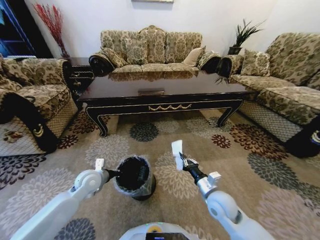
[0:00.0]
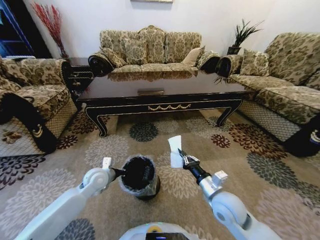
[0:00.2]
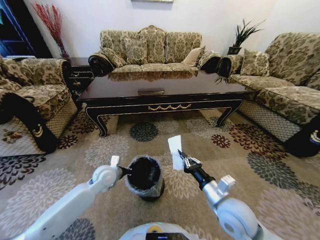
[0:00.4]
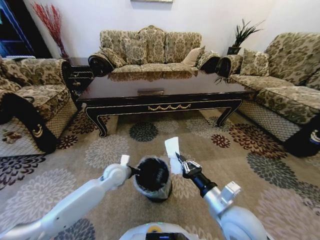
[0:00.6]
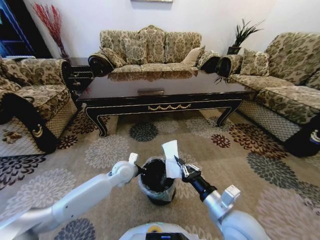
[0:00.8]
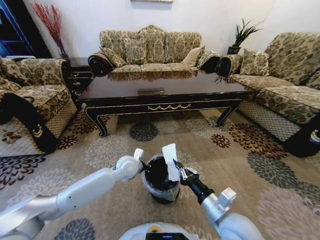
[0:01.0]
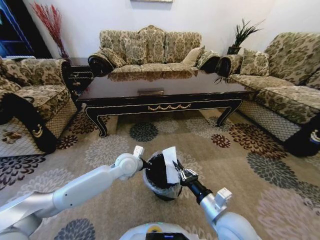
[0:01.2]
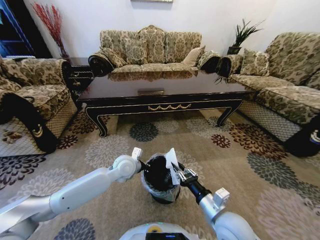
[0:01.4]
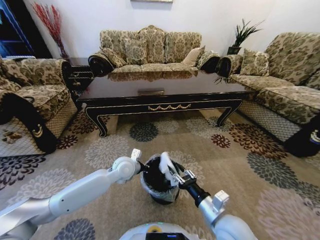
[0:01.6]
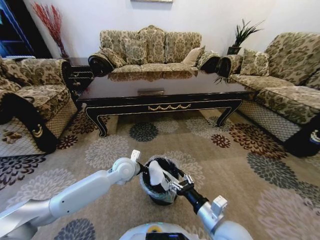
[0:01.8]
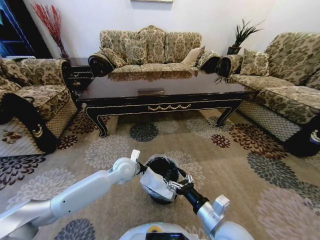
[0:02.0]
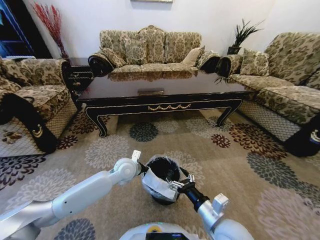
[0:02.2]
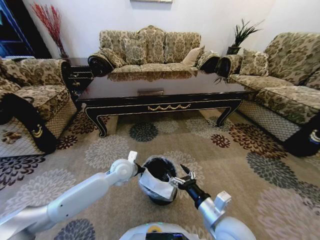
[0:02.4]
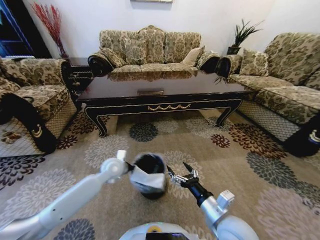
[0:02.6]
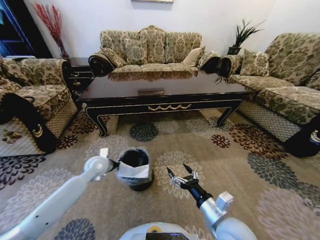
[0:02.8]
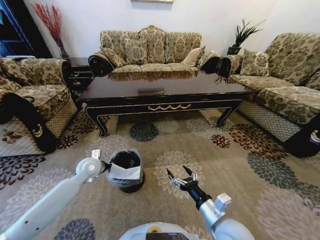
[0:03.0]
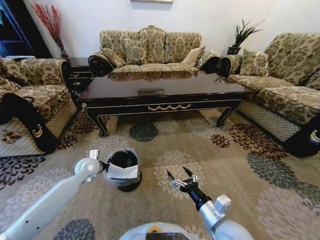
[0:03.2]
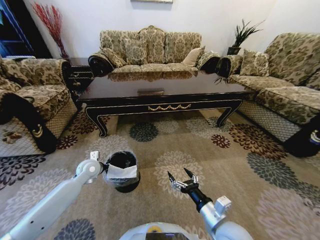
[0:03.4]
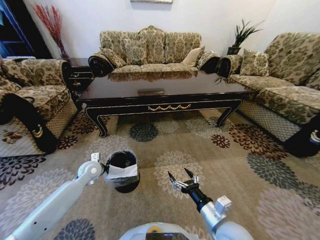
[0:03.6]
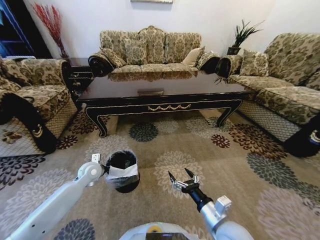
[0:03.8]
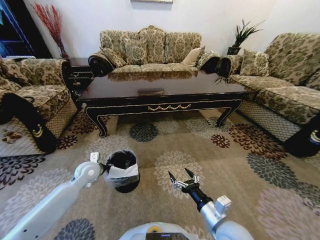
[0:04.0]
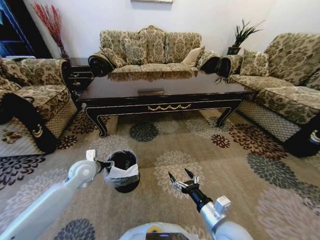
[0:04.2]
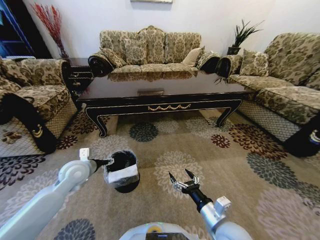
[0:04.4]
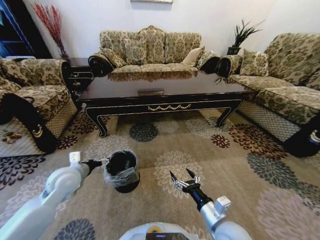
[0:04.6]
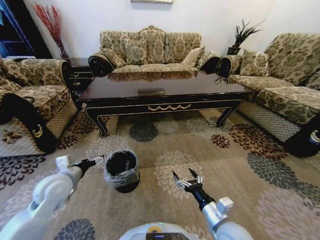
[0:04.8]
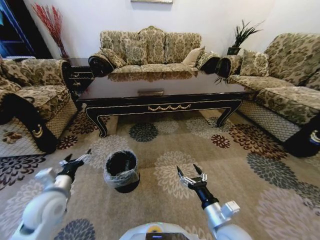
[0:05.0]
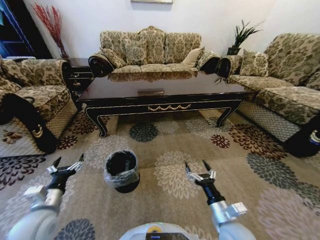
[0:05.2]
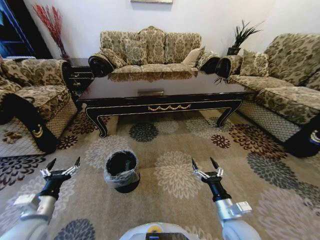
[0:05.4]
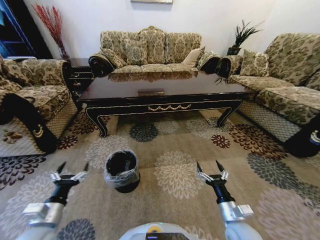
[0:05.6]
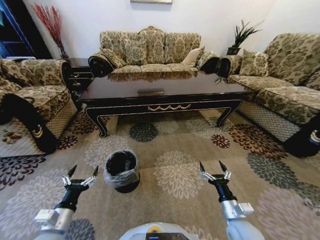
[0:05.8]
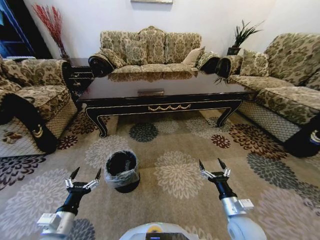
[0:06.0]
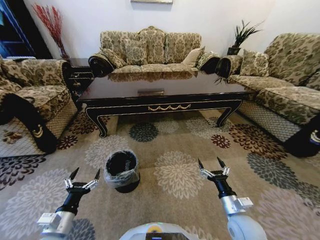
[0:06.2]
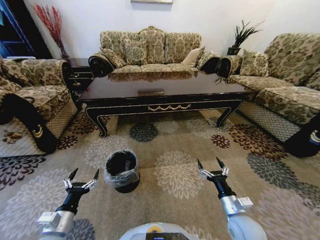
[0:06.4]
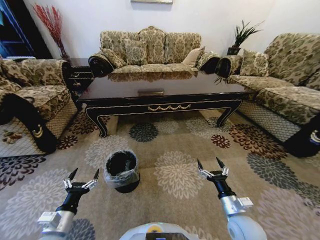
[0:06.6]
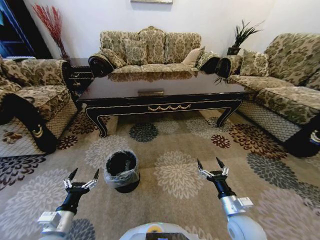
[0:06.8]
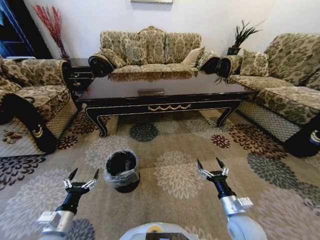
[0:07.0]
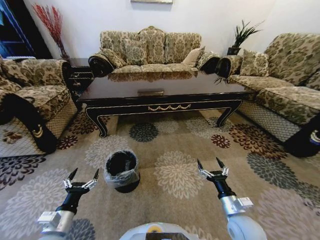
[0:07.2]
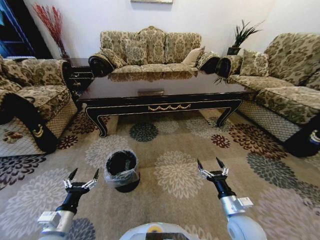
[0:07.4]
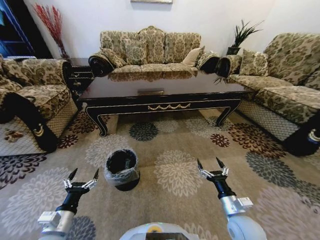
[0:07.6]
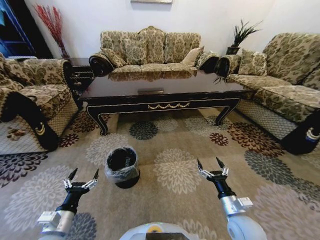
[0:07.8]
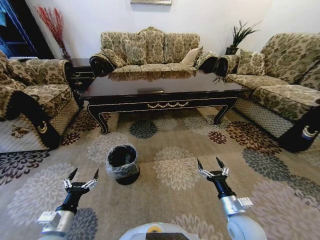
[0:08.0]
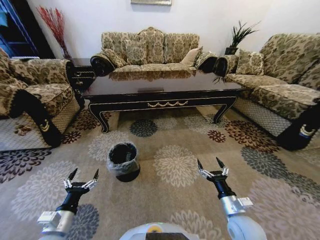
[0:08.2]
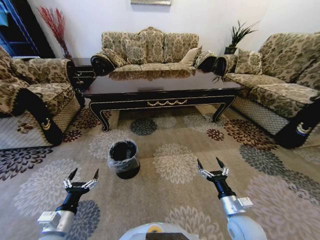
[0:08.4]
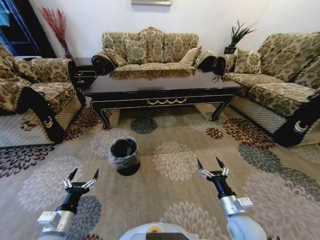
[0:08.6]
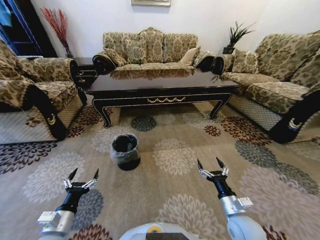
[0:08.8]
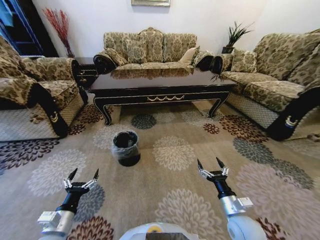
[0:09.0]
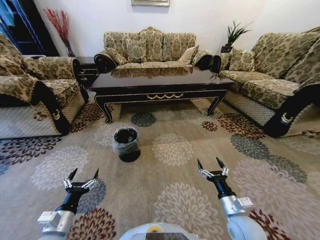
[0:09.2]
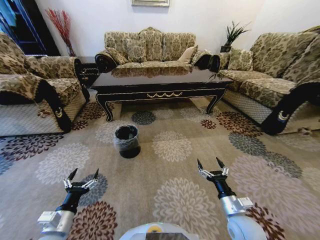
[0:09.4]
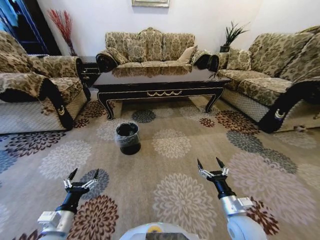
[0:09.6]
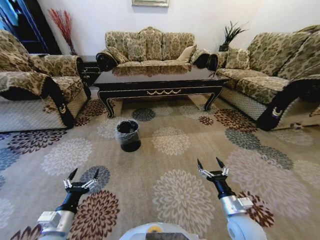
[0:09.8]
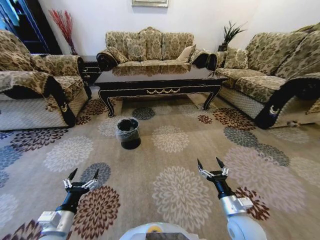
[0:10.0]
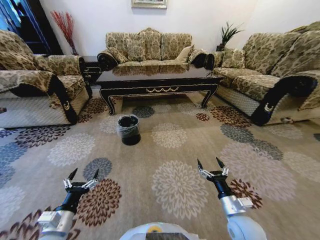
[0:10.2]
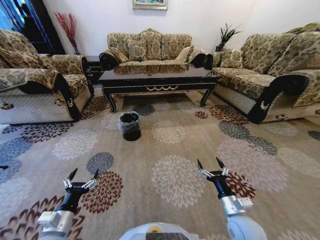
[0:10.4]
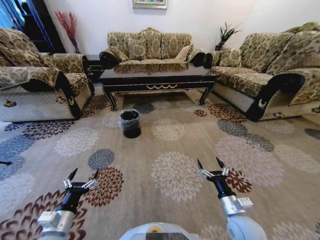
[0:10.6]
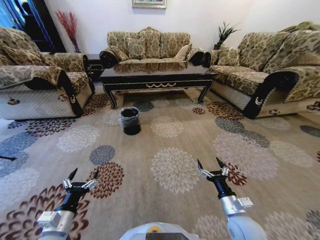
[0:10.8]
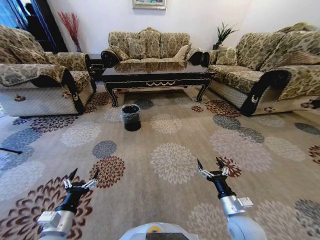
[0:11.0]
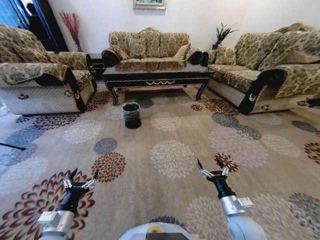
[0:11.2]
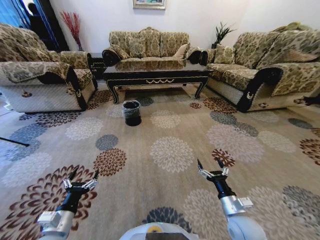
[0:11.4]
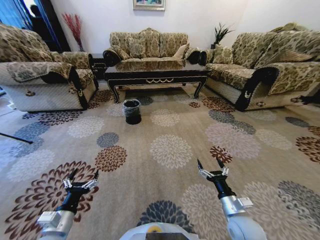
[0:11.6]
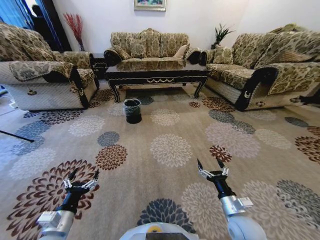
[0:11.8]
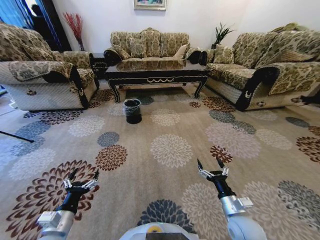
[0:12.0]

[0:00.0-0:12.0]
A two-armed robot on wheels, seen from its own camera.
Task of the whole recording: Move to the front of the table and pick up the trash from the floor, then place it into the trash bin.
0:00.0 to 0:01.6: The left gripper goes approximately 15 cm to the right. Meanwhile the right gripper travels backward by roughly 10 cm, and opens its fingers.
0:01.6 to 0:03.0: The left gripper heads to the left, covering about 15 cm; the right gripper opens.
0:03.0 to 0:04.4: The left gripper moves upward and backward, about 10 cm, and opens.
0:04.4 to 0:06.0: The right gripper goes approximately 10 cm to the right and downward. Meanwhile the left gripper is displaced backward and downward by about 25 cm.
0:06.0 to 0:07.6: Neither gripper changes place.

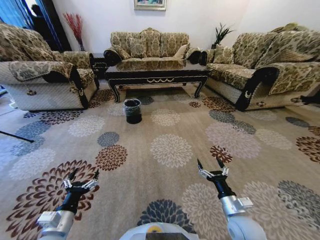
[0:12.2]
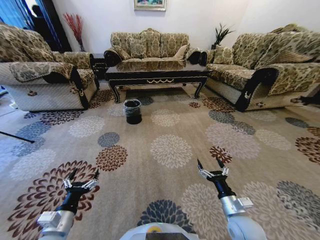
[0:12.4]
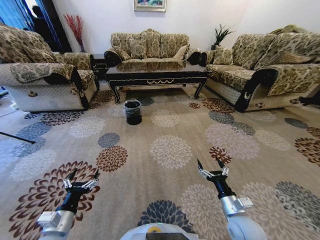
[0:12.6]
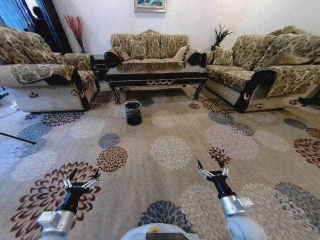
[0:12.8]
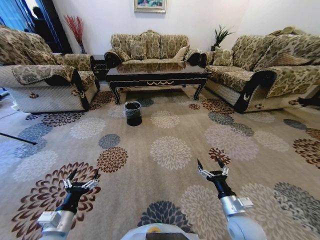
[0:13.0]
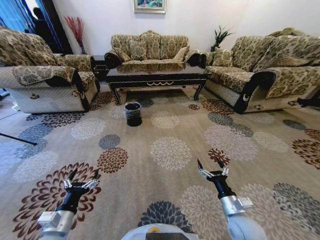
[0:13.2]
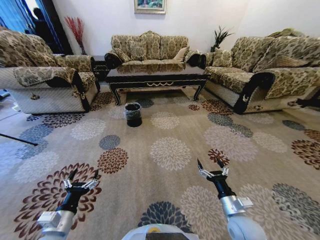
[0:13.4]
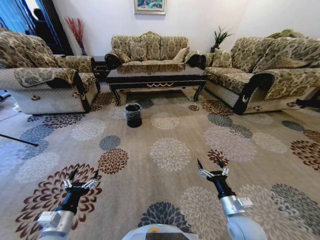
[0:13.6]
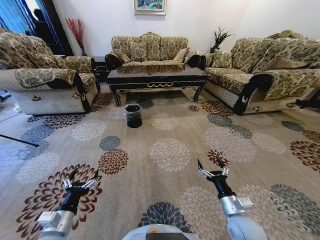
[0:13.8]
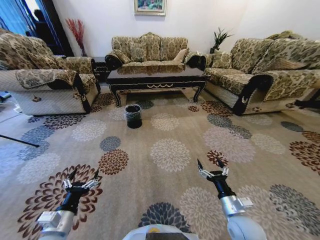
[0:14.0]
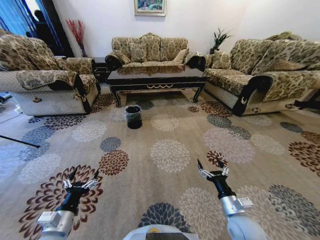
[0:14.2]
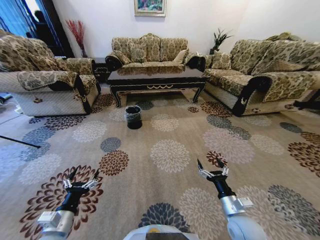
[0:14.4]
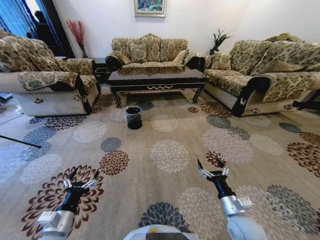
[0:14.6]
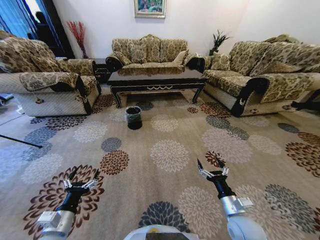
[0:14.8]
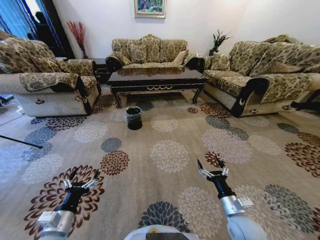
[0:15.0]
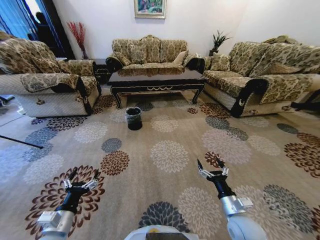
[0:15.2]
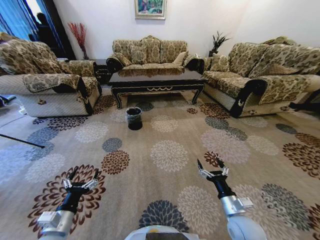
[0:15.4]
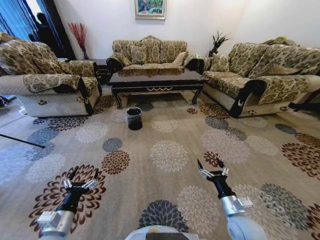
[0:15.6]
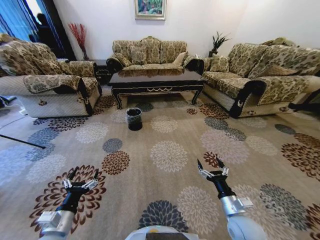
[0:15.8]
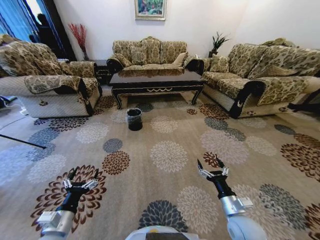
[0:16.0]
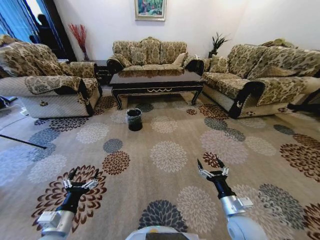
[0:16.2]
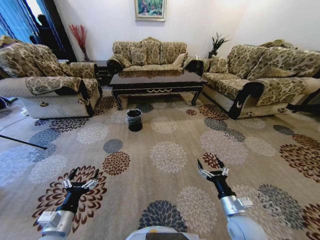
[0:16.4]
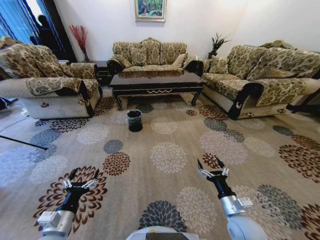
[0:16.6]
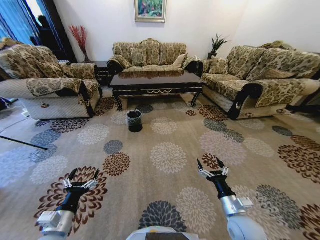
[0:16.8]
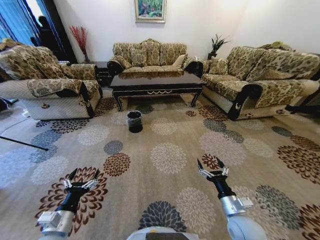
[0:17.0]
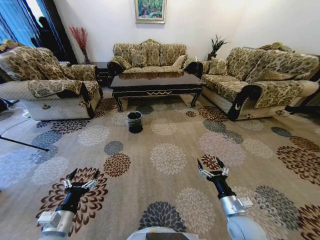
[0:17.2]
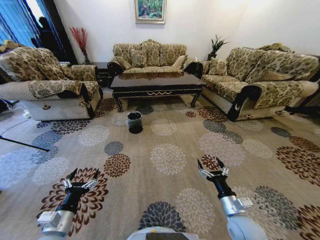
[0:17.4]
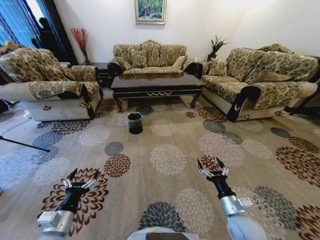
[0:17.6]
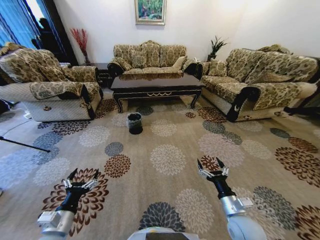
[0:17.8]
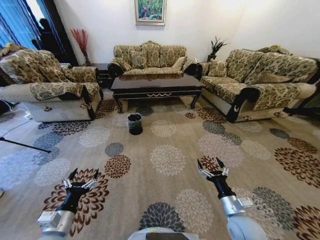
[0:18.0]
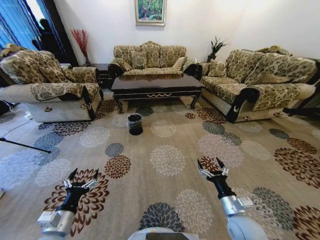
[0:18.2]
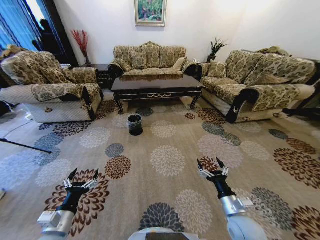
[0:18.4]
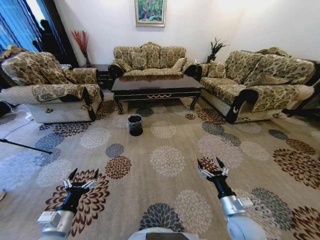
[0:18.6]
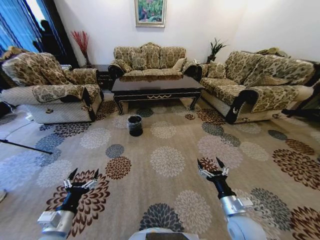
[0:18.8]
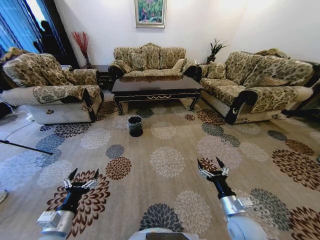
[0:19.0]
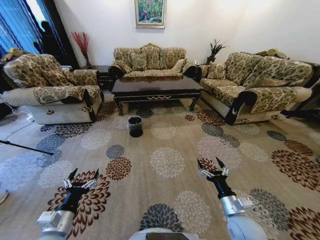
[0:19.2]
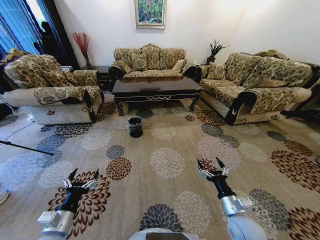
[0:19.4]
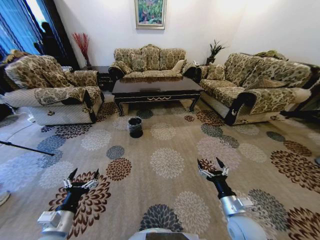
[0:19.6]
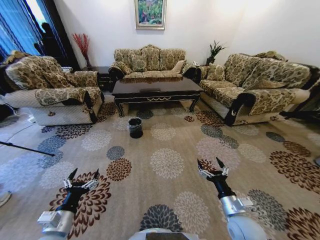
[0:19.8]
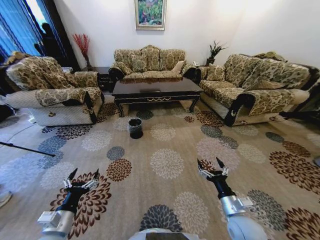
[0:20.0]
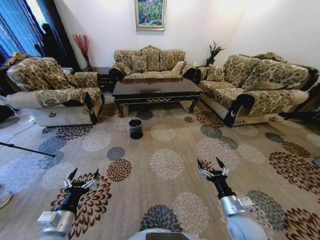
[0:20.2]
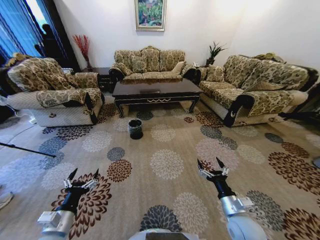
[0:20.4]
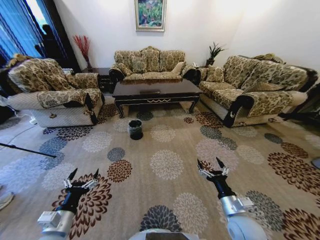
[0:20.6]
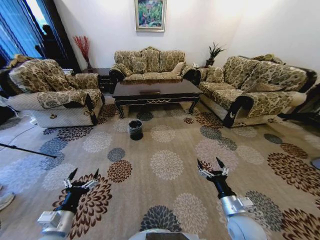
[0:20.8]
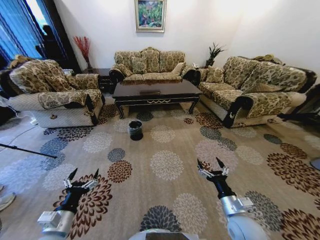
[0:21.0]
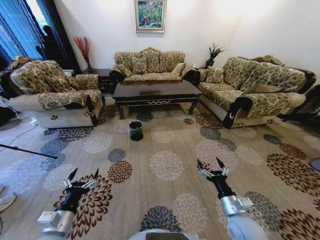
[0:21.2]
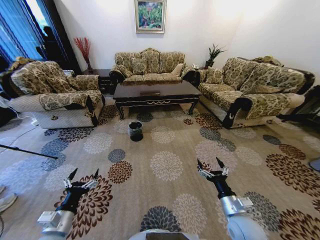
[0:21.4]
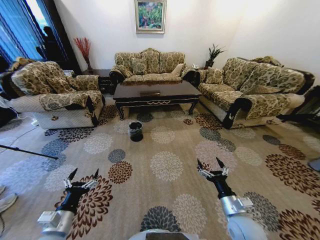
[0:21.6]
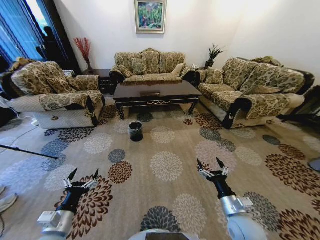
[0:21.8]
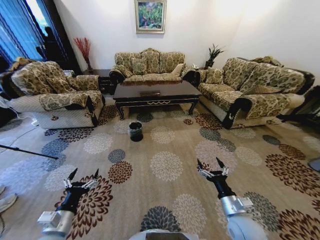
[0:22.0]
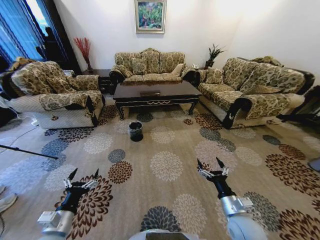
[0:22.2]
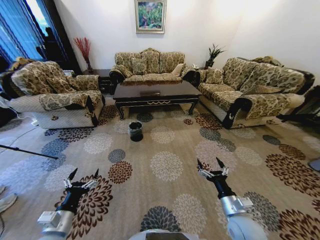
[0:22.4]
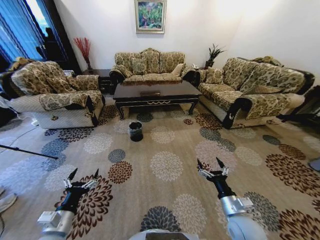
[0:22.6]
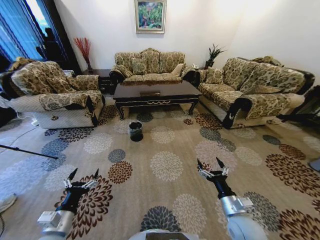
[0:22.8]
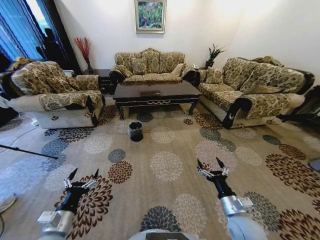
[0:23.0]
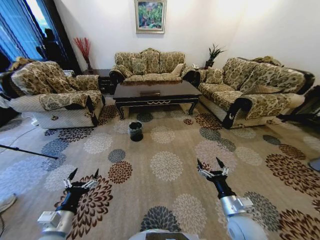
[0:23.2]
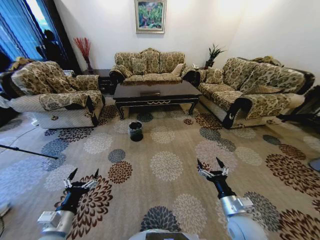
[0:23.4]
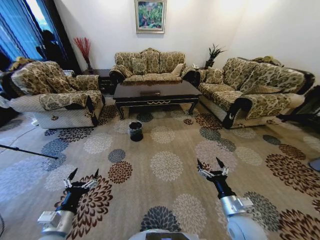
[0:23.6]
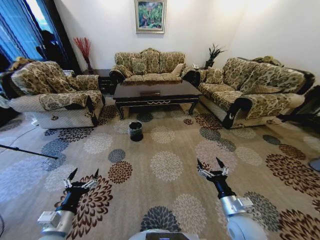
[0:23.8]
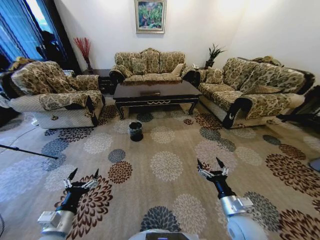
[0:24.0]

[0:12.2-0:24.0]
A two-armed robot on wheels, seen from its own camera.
Task of the whole recording: Move to the front of the table and pick up the trash from the floor, then place it into the trash bin.
0:21.0 to 0:24.0: The two grippers keep their place.
